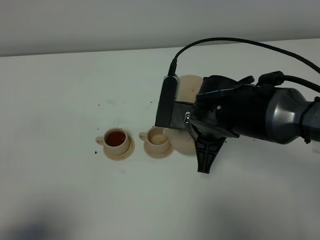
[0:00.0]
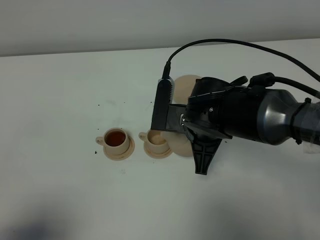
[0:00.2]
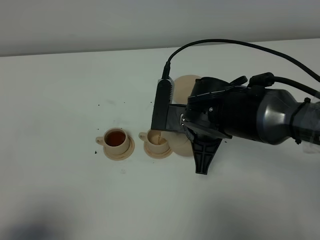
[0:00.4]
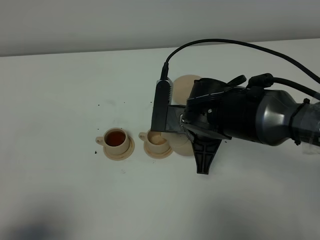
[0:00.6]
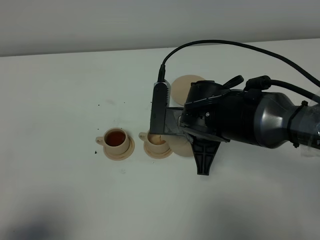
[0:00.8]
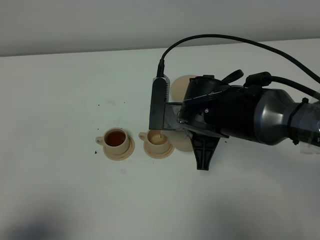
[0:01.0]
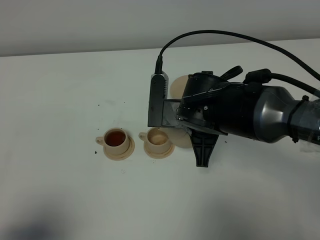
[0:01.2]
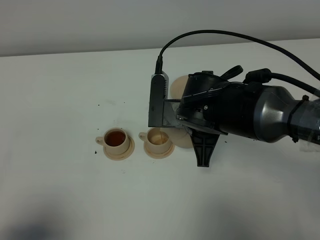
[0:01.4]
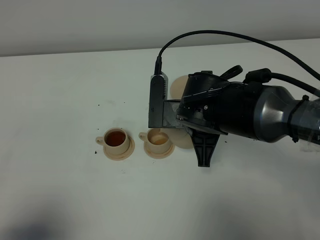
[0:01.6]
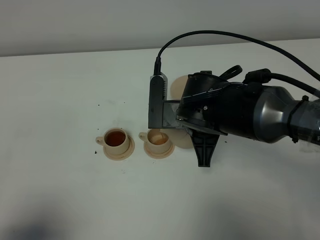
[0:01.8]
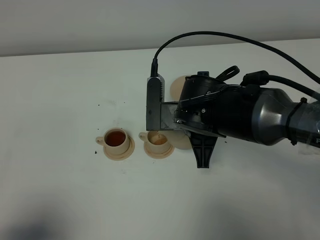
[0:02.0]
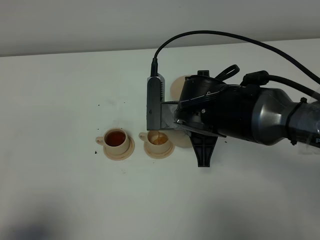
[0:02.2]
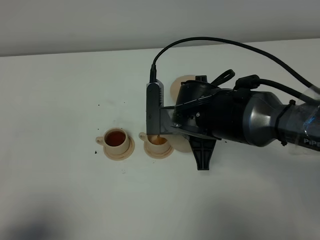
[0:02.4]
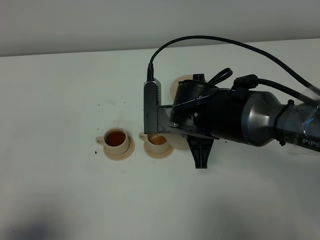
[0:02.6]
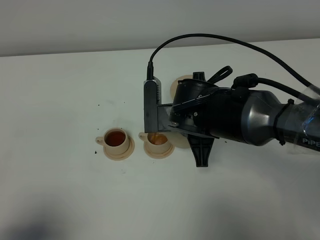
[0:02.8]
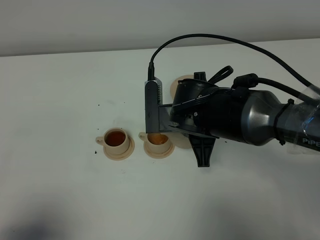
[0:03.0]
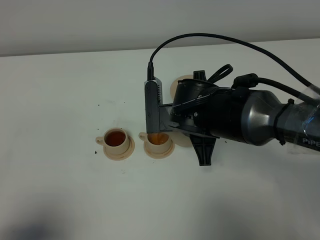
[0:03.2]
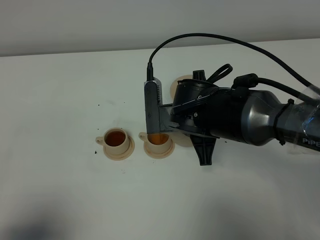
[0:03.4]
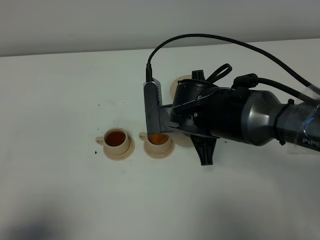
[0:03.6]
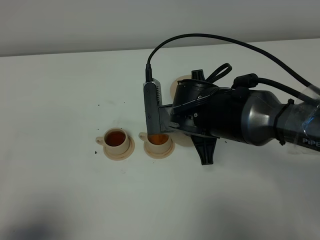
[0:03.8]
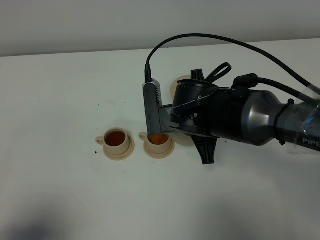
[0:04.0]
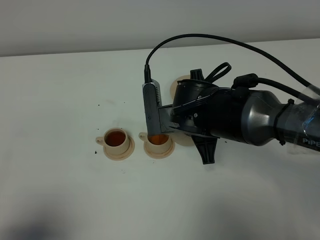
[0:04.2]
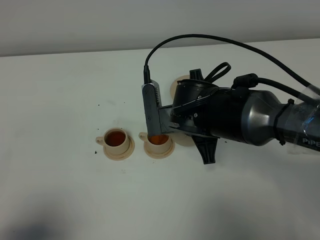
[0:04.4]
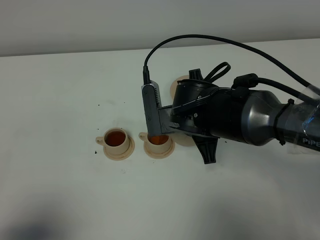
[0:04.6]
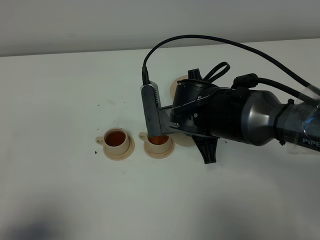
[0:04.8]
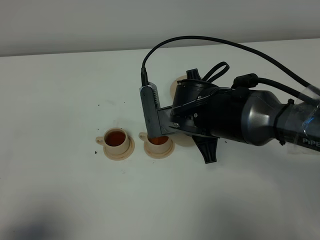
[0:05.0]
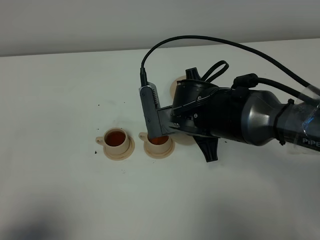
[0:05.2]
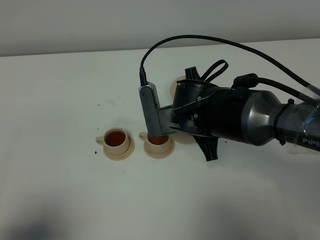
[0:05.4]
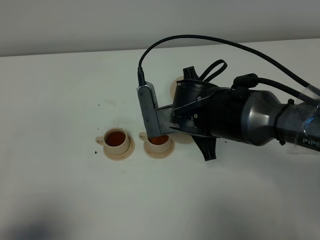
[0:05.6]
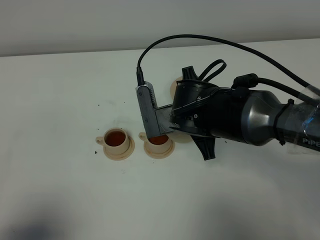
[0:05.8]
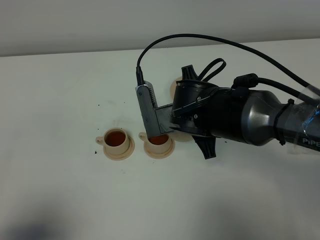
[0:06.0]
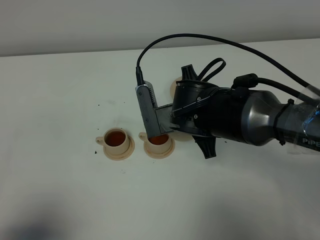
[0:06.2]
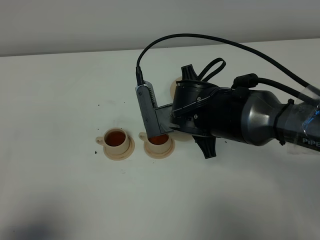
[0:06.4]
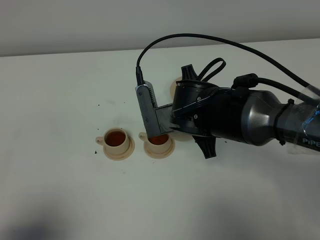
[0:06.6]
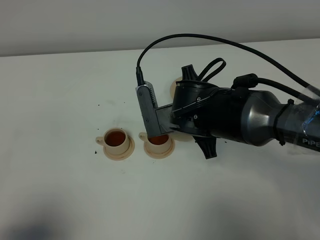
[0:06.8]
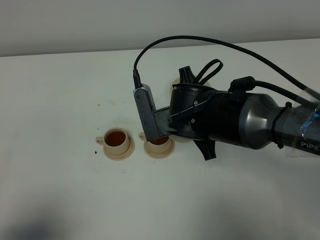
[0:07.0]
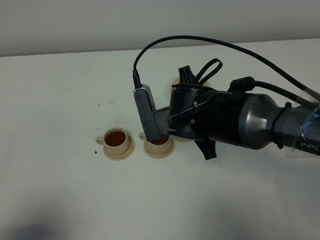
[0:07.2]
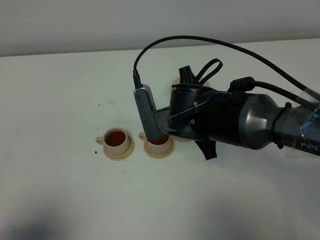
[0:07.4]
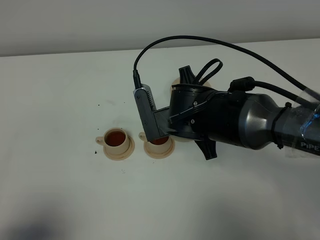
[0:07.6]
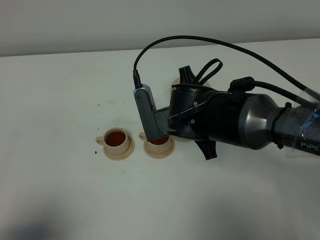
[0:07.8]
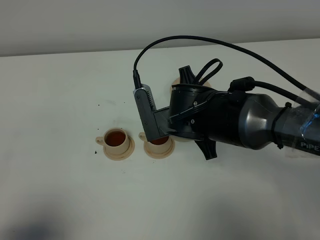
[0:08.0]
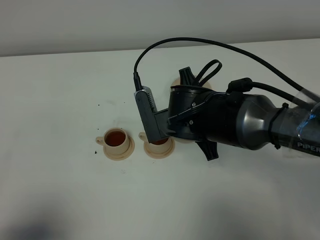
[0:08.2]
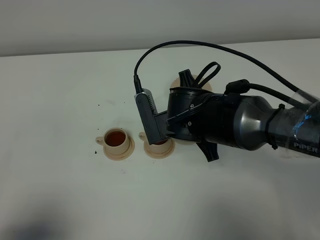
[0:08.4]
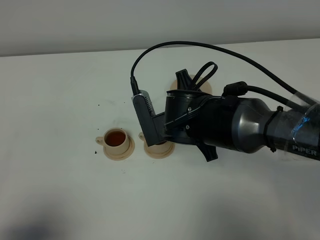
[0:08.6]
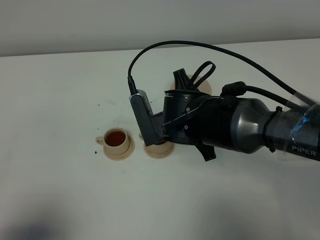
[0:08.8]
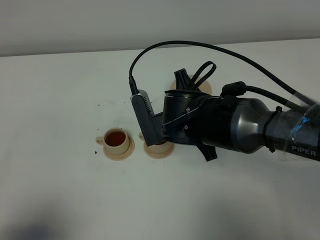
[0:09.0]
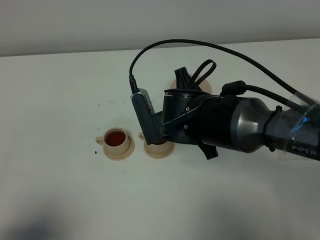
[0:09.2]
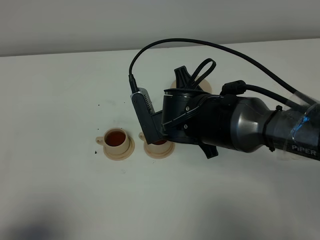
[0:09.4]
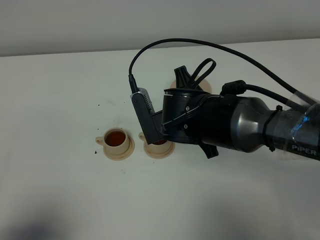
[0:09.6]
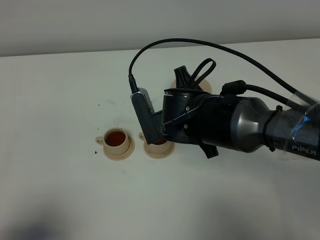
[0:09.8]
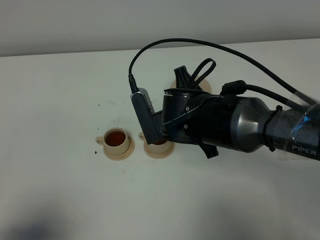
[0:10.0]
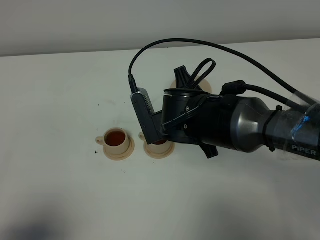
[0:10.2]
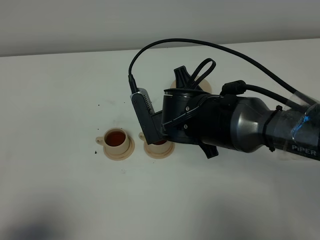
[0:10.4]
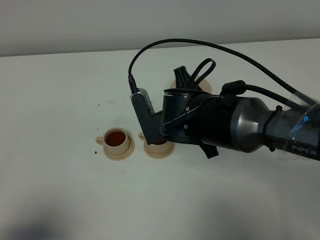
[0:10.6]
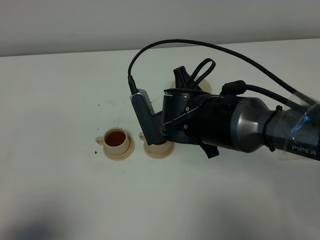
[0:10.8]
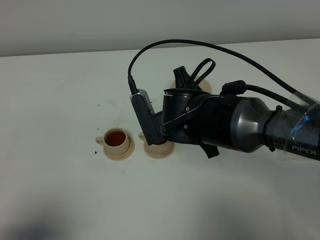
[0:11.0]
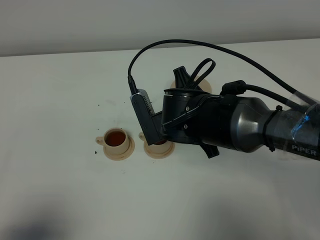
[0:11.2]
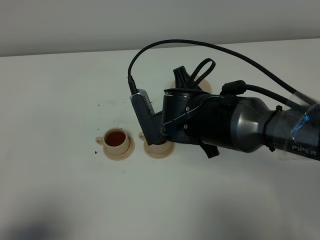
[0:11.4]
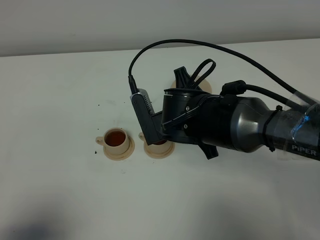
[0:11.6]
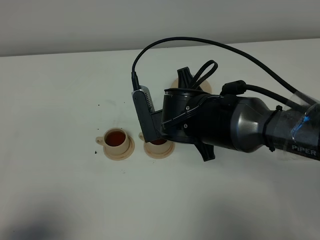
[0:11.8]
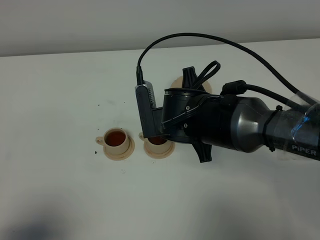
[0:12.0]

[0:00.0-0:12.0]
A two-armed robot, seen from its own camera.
Task of the whole recording: grasp the brown teapot and pour the tea into the two brown teacups one by one, put the brown teapot back in its original place.
0.0 to 4.4 s: There are only small adjustments of the grippers.
4.4 to 6.0 s: The grippers move only a little.
6.0 to 7.6 s: Neither gripper changes place.
7.6 to 9.0 s: Both grippers stay put.
9.0 to 10.4 s: Both grippers stay put.
10.4 to 12.0 s: The grippers move only a little.

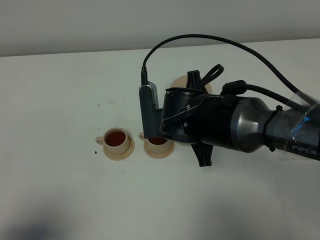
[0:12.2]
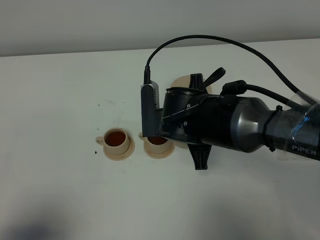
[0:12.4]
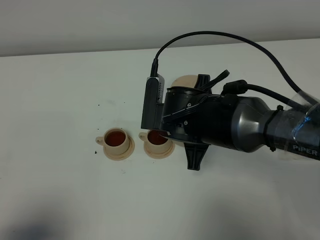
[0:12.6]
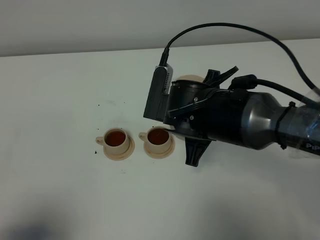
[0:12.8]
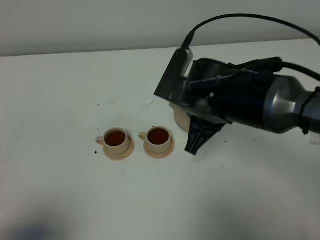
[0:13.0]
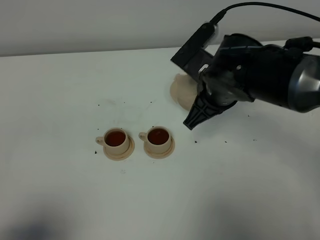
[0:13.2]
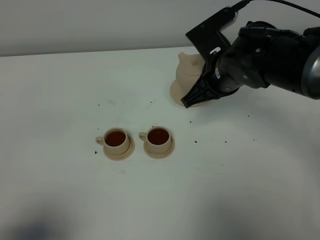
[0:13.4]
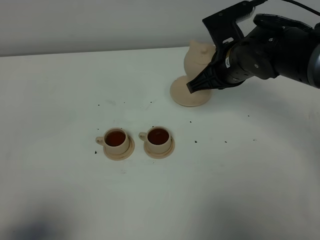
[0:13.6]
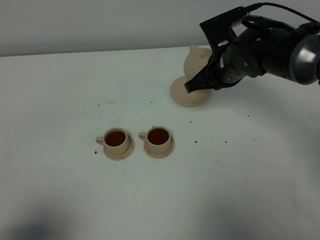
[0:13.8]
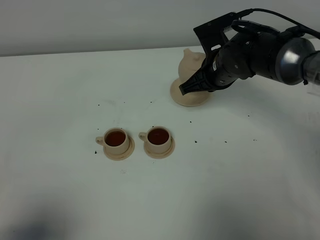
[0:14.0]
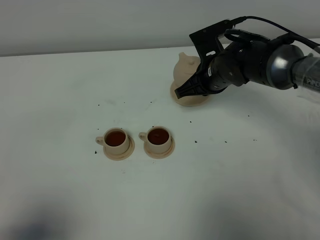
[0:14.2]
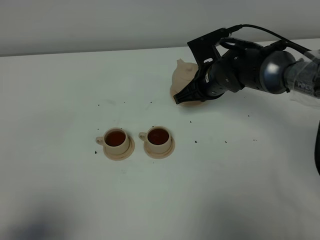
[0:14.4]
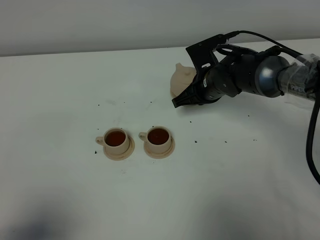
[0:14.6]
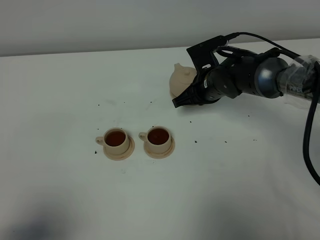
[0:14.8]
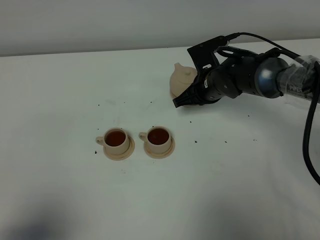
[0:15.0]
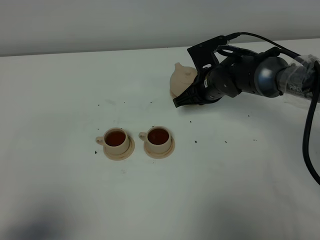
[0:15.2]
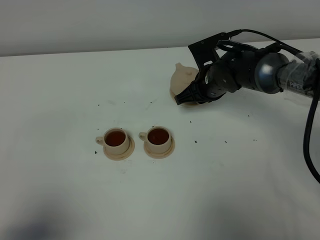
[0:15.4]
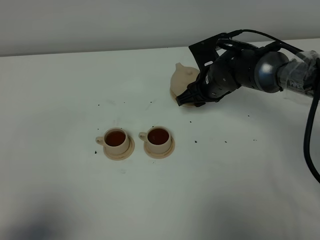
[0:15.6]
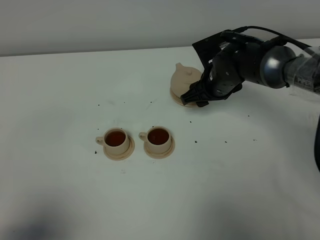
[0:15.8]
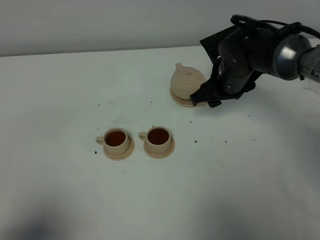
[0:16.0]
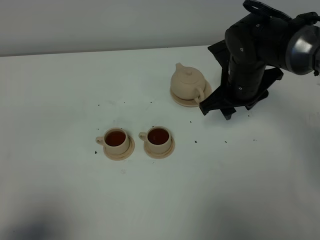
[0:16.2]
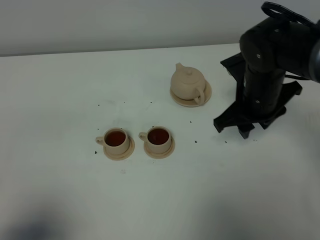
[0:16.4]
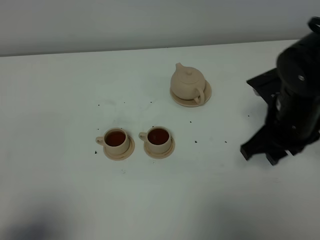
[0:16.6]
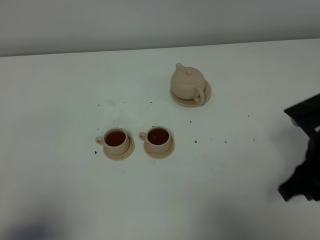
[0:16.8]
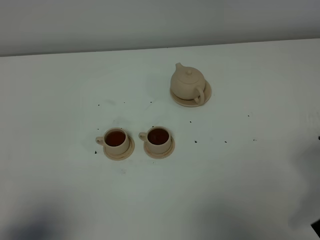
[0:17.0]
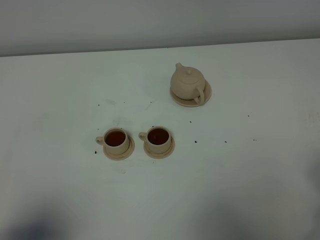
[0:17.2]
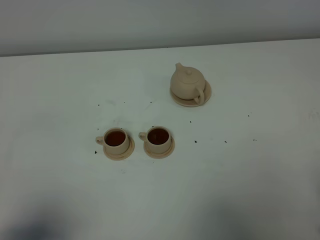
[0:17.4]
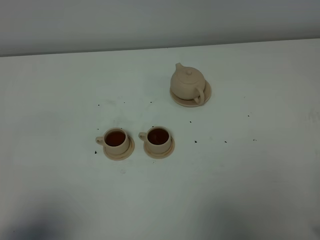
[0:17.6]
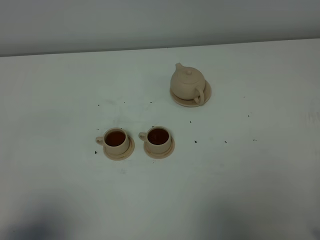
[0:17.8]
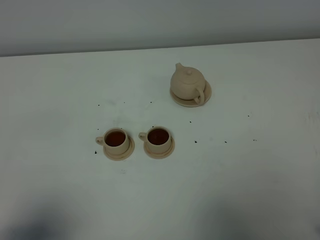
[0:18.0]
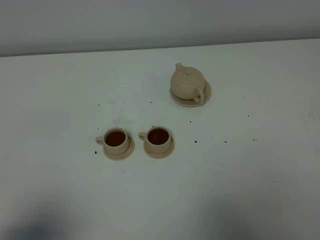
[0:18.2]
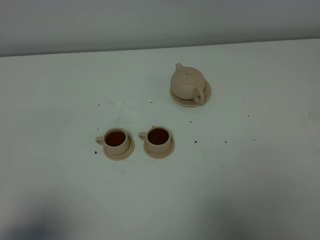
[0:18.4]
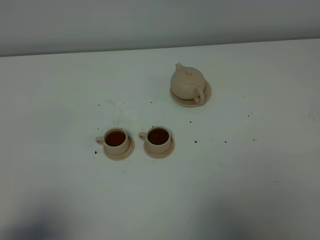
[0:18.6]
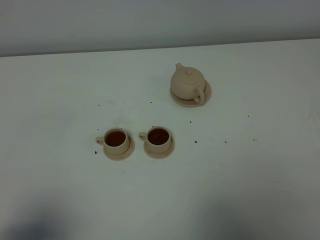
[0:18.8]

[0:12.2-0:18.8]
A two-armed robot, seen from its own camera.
Task of the whole recording: grasp the brown teapot and pour the tea into the two brown teacups one by one, put the brown teapot back in its original place.
12.2 to 13.8 s: The right gripper travels forward and to the right by about 15 cm.
13.8 to 15.4 s: The right gripper travels downward by some 5 cm, and opens.
15.4 to 17.2 s: The right gripper goes roughly 35 cm backward and to the right.

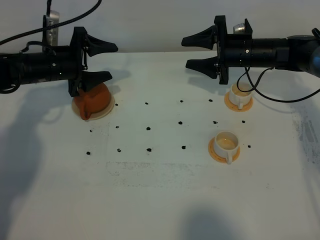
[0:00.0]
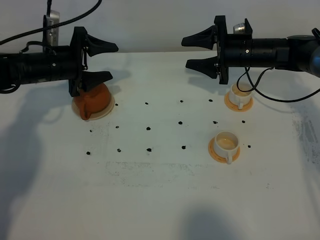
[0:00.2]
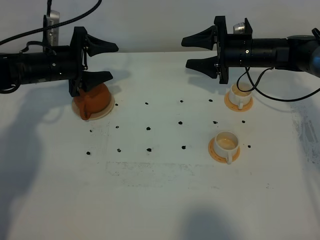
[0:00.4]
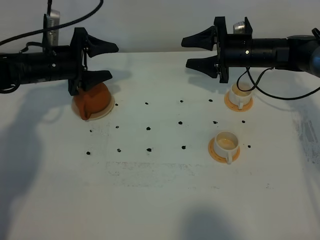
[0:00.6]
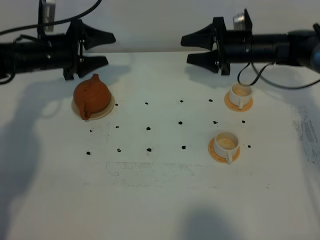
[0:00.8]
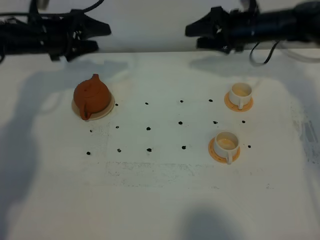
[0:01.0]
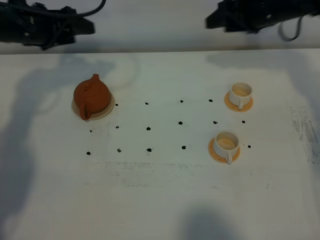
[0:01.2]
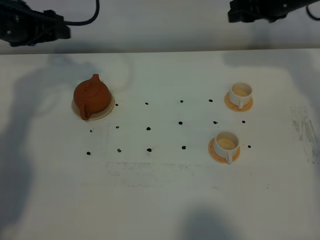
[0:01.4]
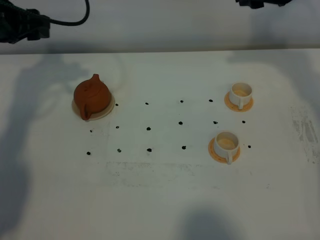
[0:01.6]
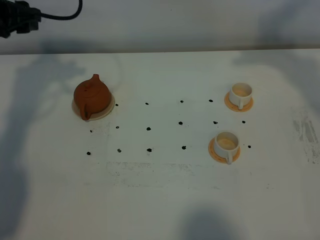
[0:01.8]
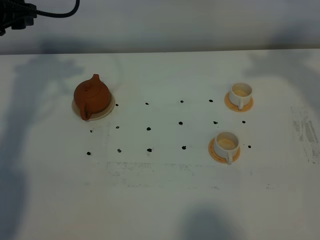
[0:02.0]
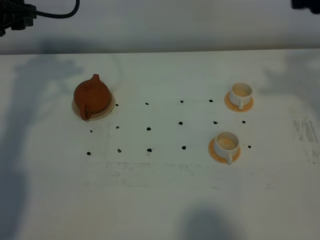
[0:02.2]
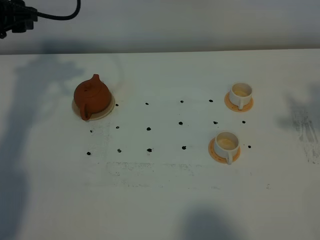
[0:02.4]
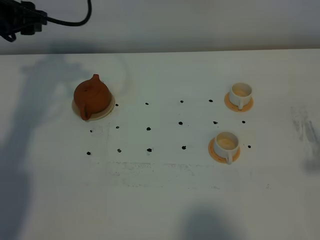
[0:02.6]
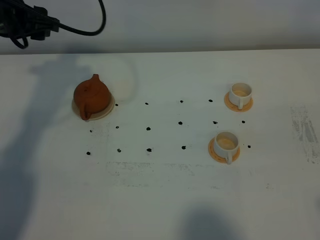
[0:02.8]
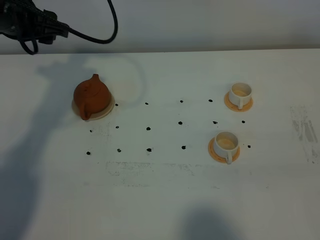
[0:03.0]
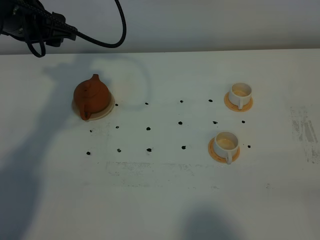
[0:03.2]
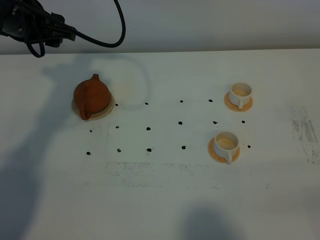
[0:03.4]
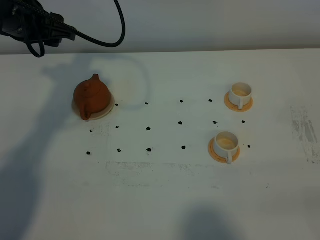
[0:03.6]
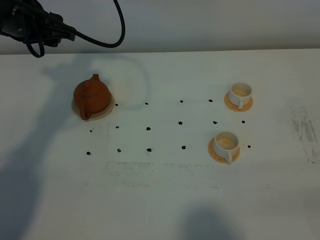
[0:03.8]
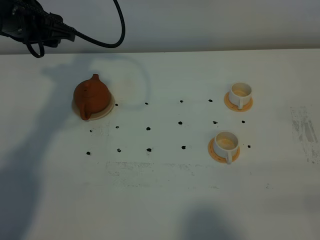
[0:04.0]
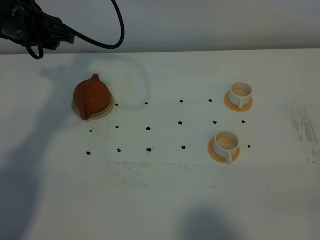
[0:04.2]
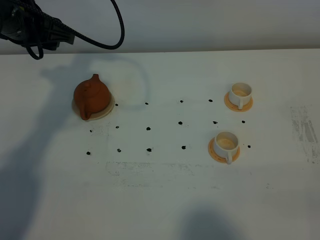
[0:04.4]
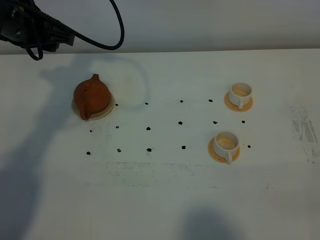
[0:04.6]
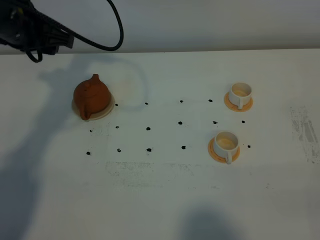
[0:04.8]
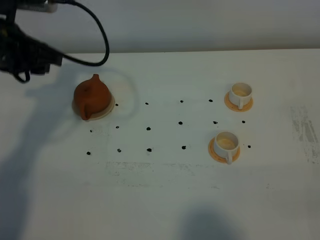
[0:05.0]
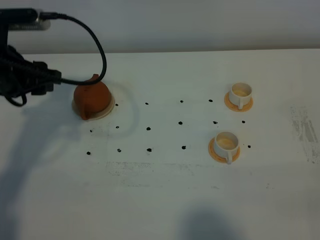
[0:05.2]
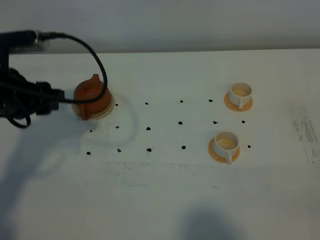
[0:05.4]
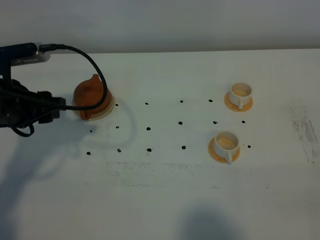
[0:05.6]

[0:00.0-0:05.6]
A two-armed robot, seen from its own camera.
Task of the whole recording: grasp the brown teapot and pour the tea into the two white teacups one by one, put the brown teapot back in its original place.
0.0 to 1.4 s: The grippers both shift upward by some 15 cm.
1.4 to 2.8 s: The right gripper is displaced backward by roughly 40 cm; the left gripper moves approximately 5 cm.
4.2 to 5.6 s: The left gripper shifts approximately 15 cm backward and downward.
